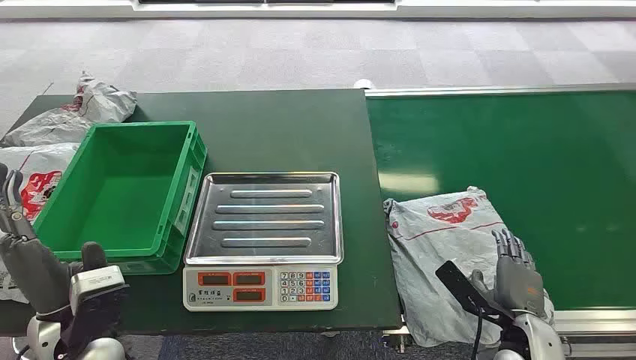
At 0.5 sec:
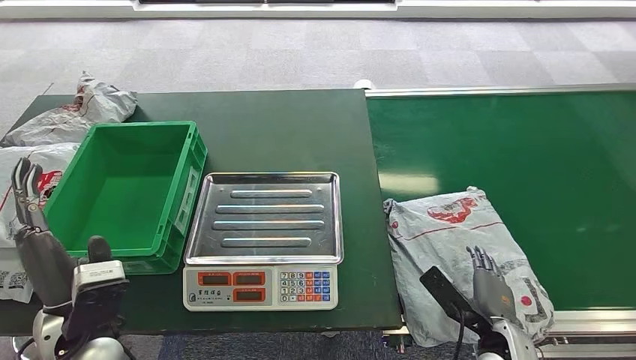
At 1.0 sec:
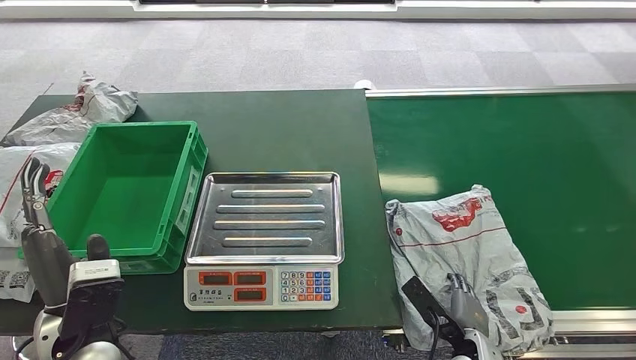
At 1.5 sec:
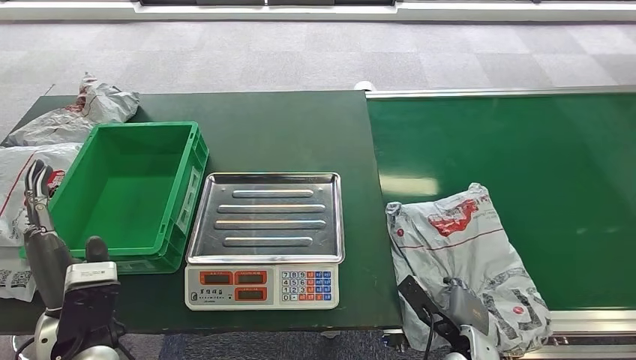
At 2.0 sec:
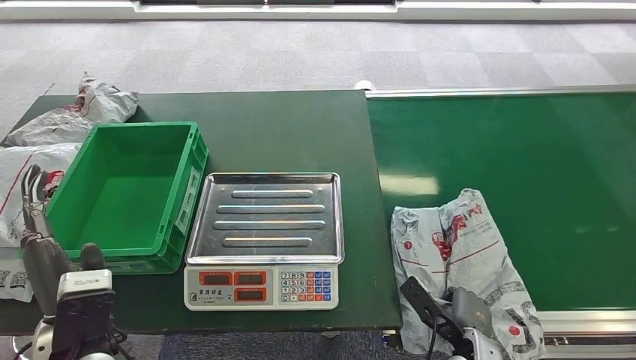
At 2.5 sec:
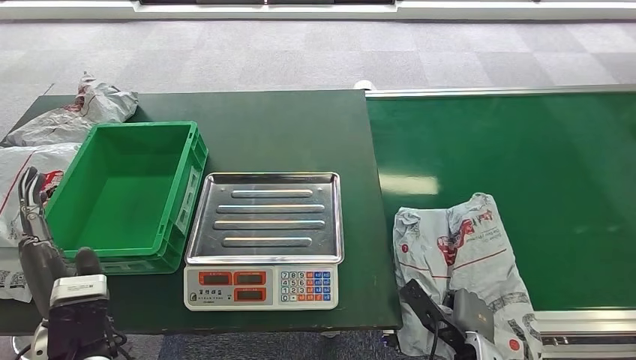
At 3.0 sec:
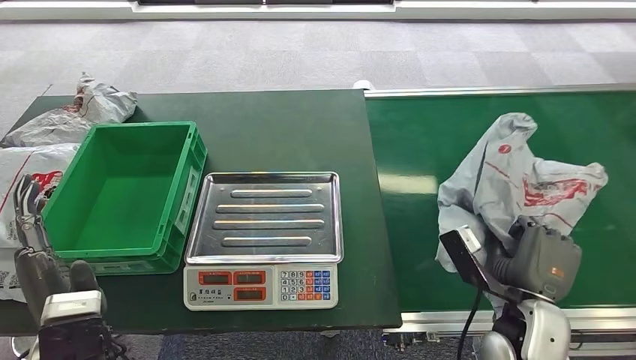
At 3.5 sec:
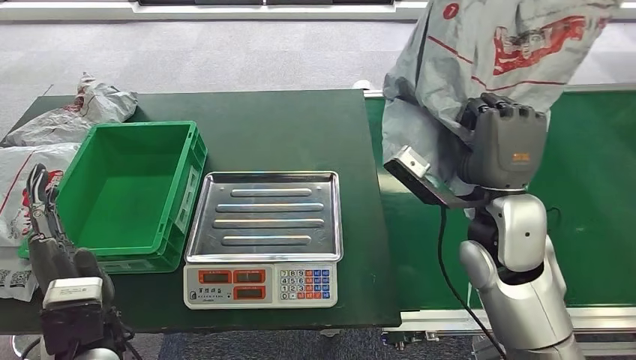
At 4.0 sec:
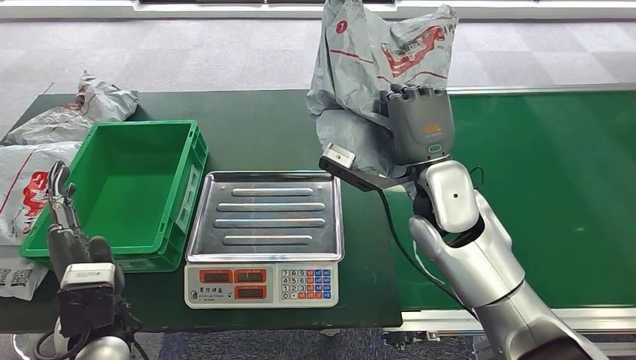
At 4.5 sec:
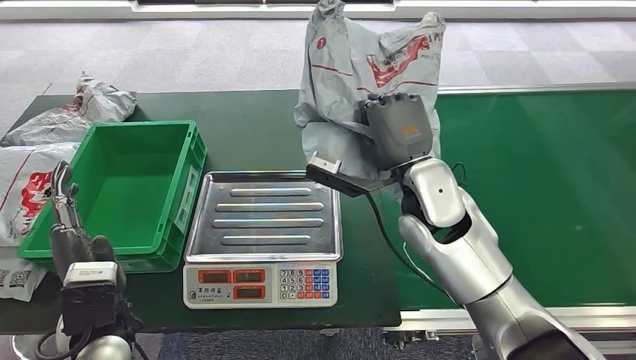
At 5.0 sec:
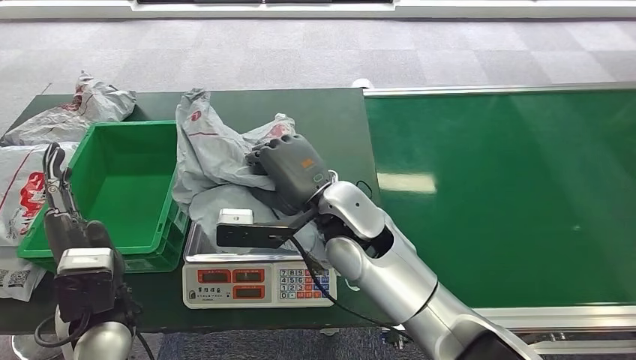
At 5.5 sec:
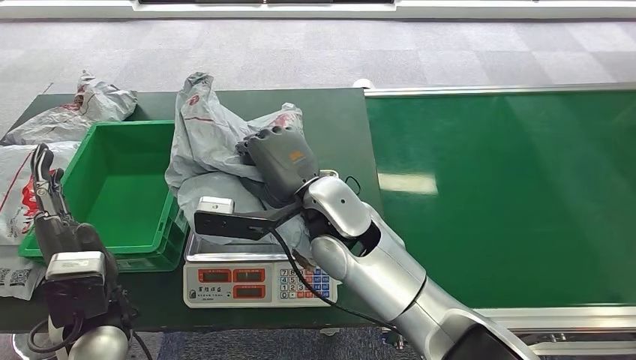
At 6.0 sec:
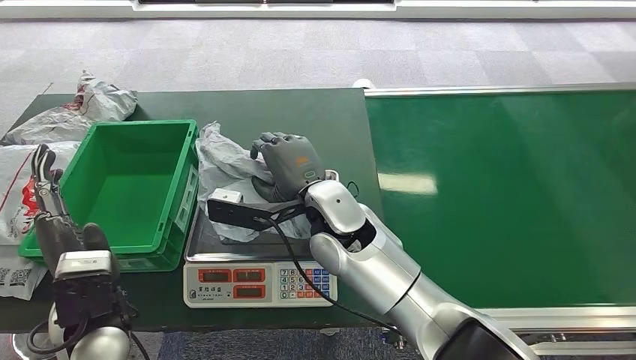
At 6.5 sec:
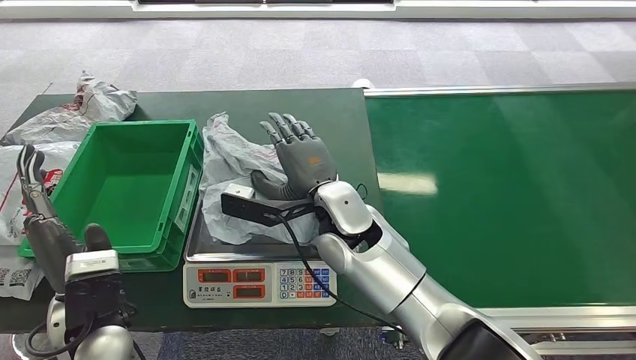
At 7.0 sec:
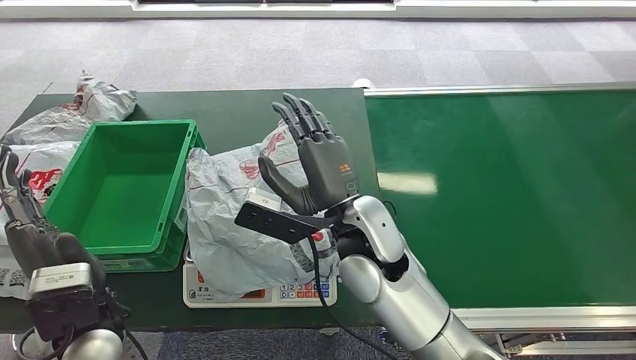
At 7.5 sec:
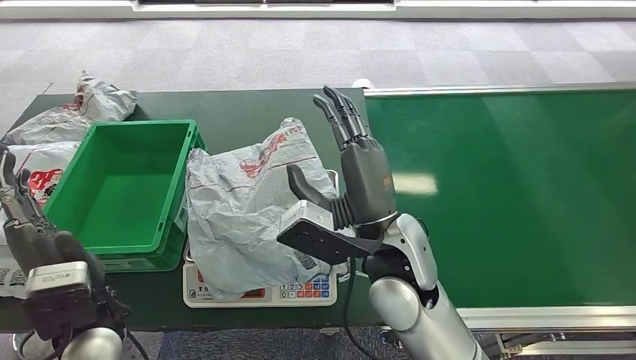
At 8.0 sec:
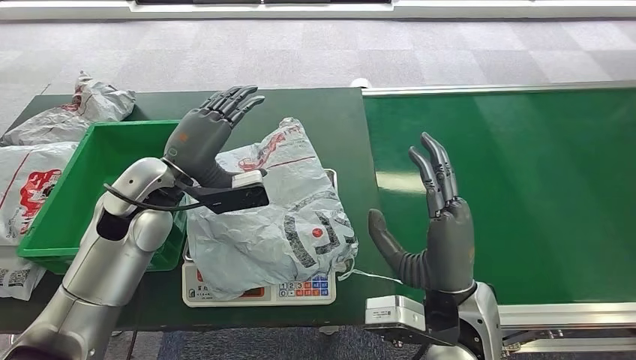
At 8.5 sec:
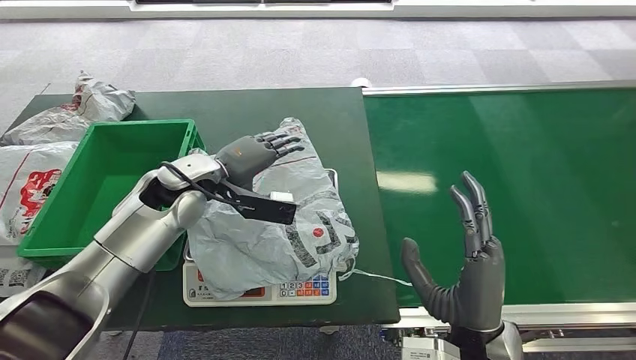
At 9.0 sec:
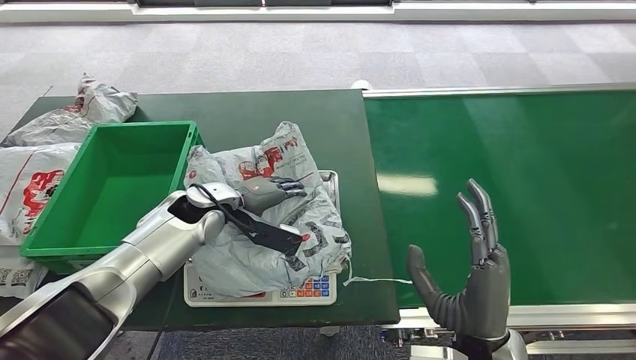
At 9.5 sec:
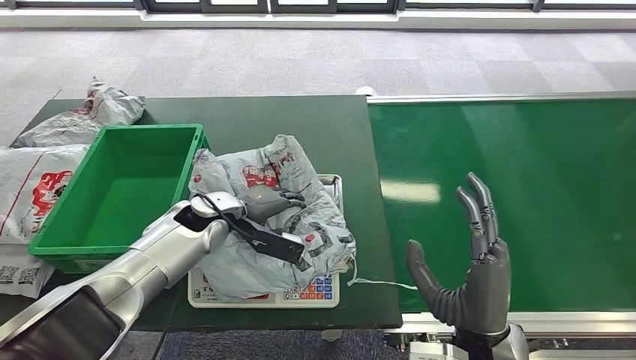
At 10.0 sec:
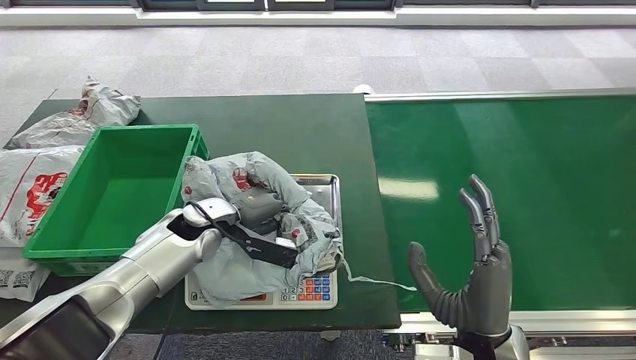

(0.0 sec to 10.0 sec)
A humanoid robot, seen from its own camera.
Step, 0.0 sec - 3.0 sec: Pick up the package from the conveyor belt.
Step, 3.5 sec - 7.5 sec: Place the package onto the inbound machine.

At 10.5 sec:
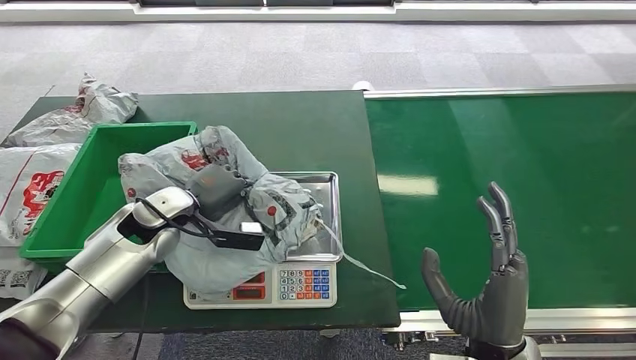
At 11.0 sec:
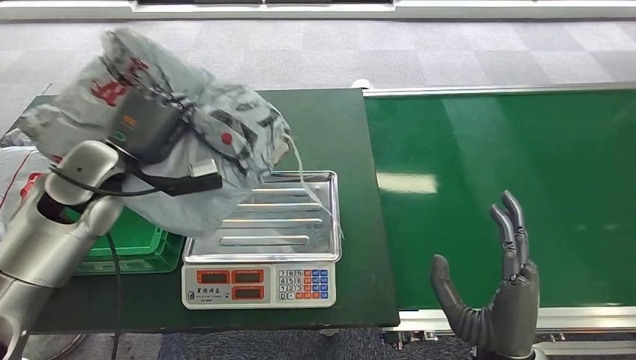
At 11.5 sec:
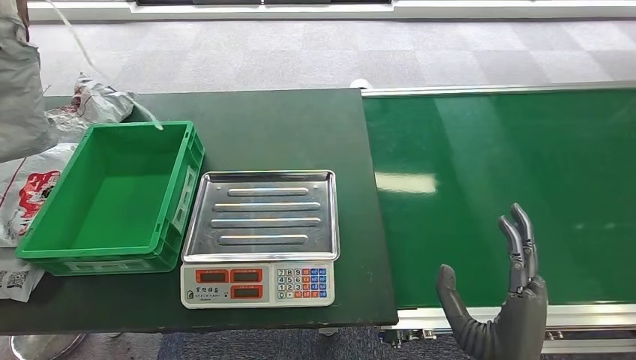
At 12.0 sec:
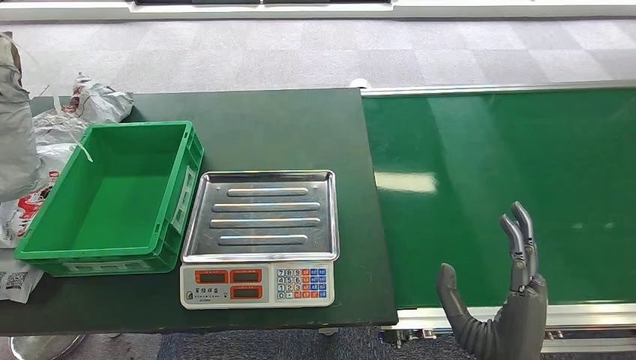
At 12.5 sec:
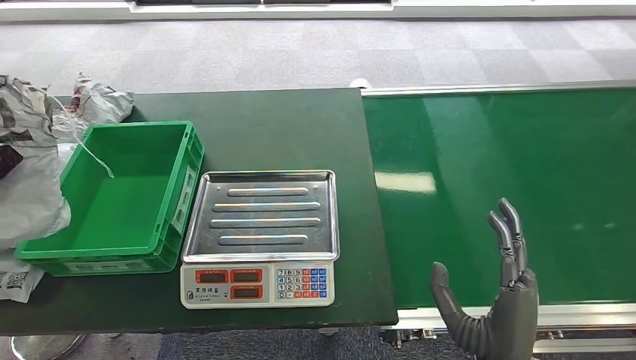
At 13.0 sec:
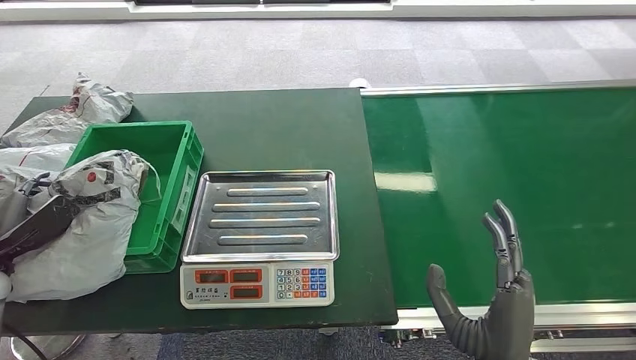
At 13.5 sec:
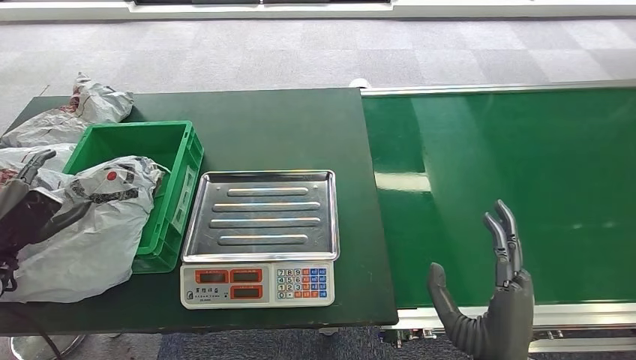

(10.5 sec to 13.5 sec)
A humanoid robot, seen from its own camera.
Step, 11.5 sec - 13.5 sec: Place the package into the parcel locker.
12.0 sec - 13.5 sec: The left hand heads downward, to the right and backward, covering some 15 cm.

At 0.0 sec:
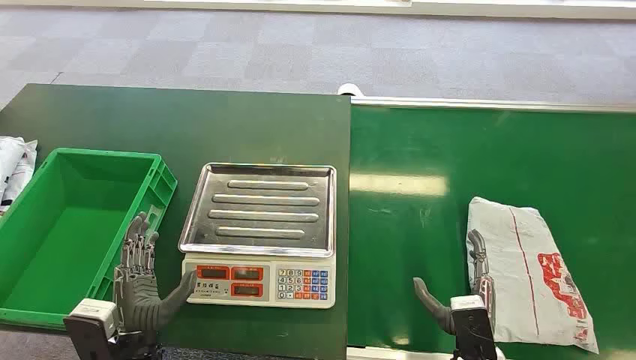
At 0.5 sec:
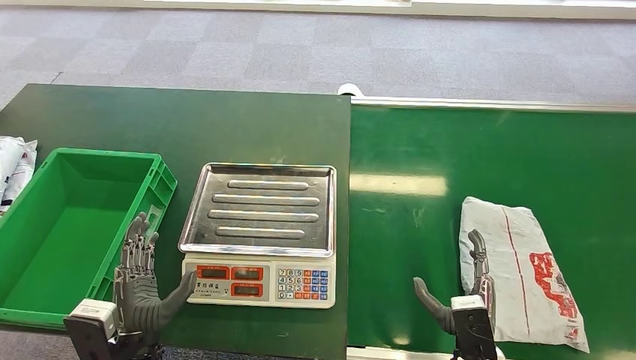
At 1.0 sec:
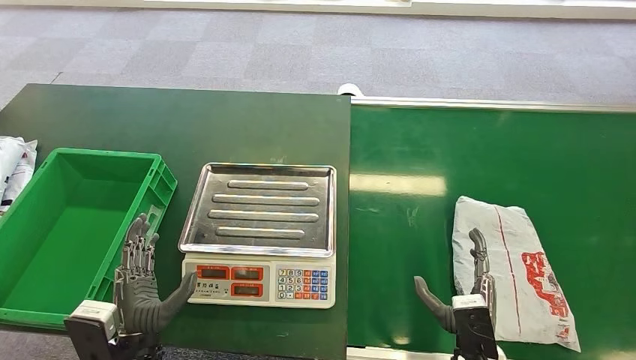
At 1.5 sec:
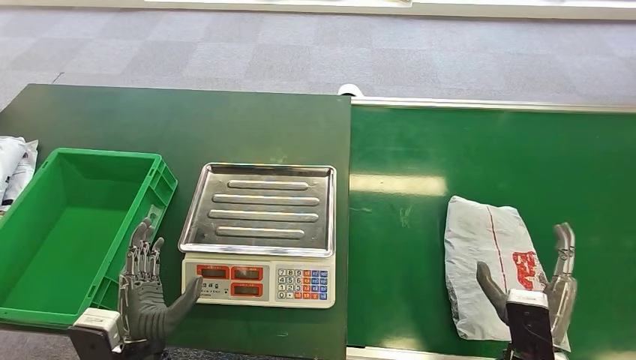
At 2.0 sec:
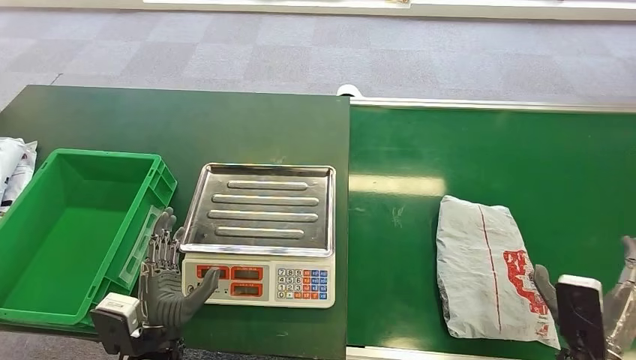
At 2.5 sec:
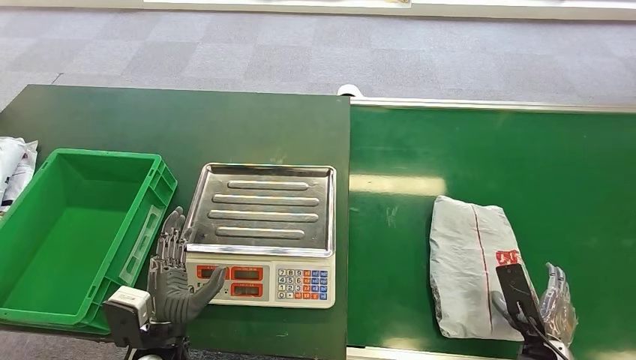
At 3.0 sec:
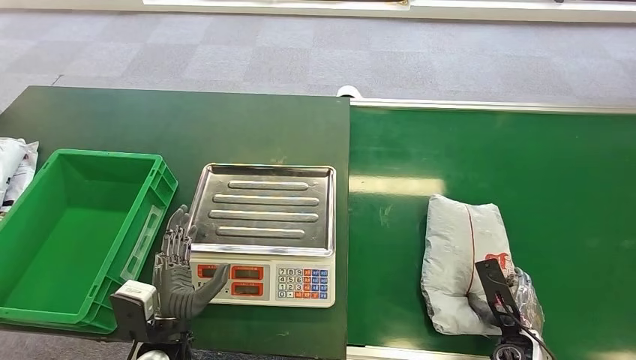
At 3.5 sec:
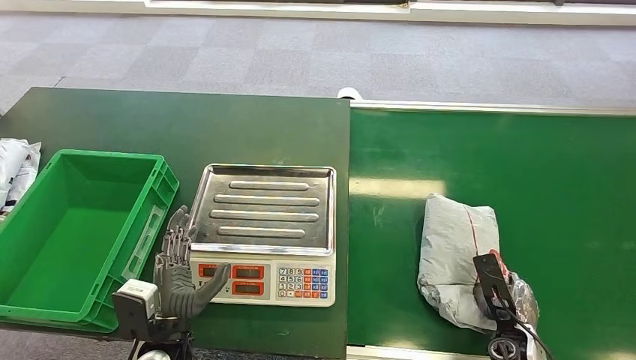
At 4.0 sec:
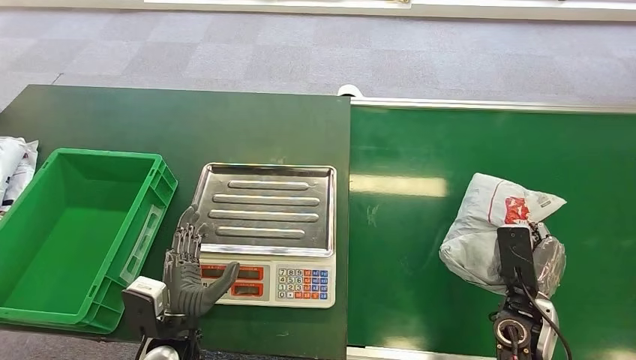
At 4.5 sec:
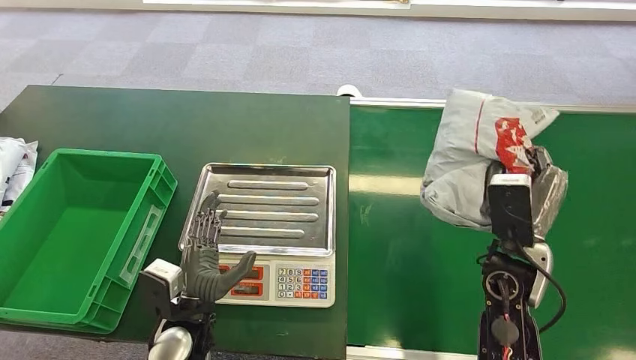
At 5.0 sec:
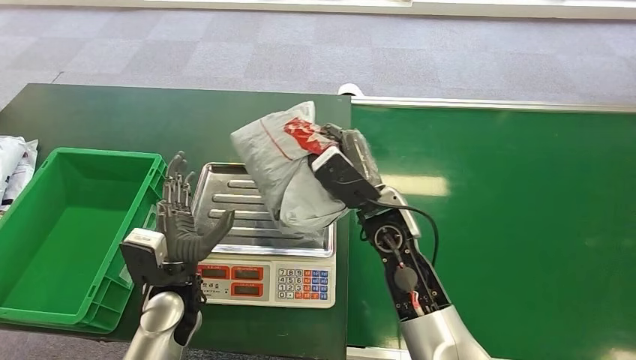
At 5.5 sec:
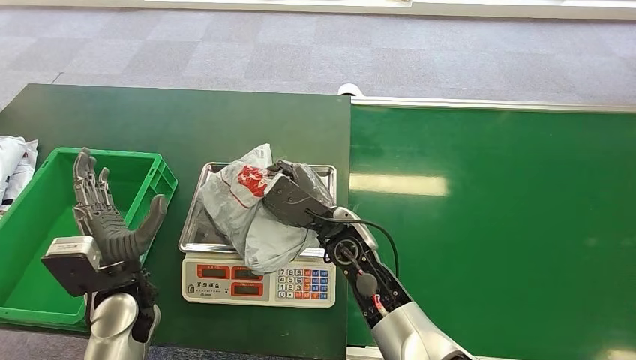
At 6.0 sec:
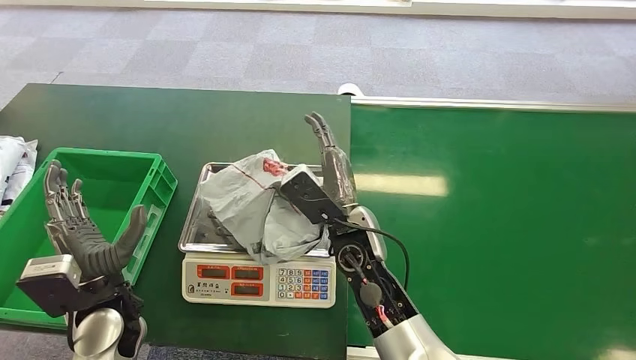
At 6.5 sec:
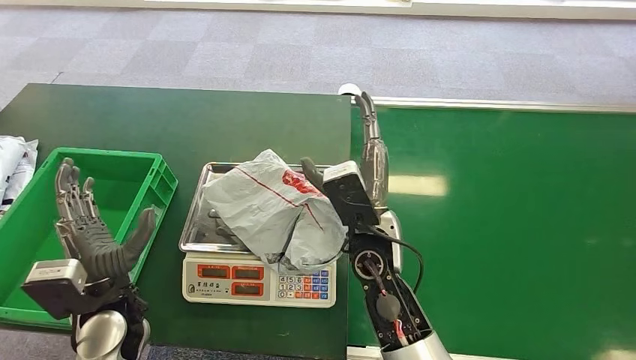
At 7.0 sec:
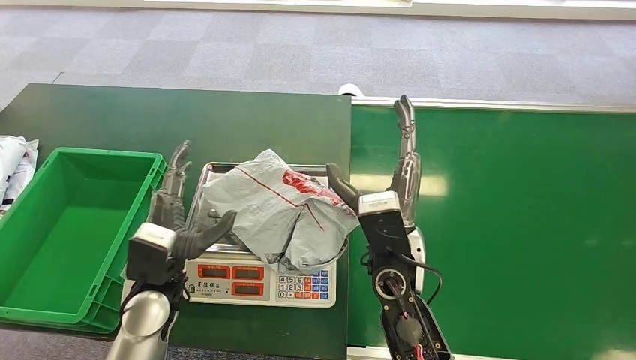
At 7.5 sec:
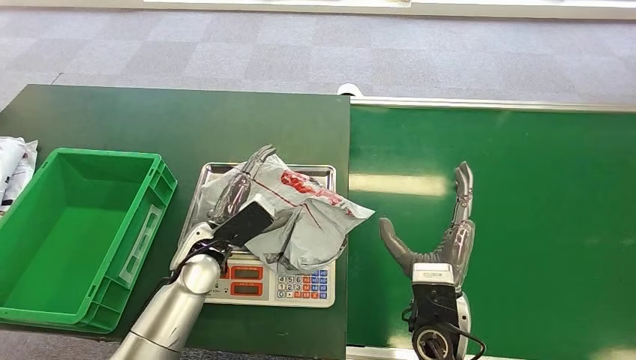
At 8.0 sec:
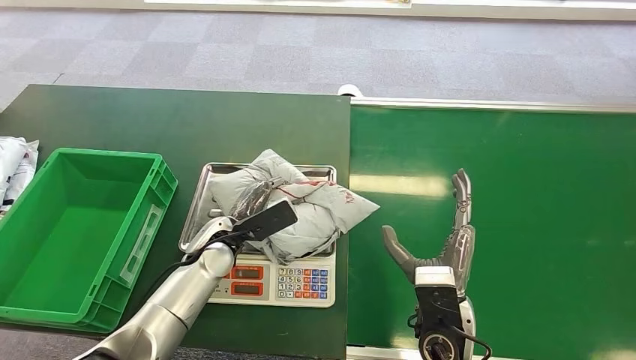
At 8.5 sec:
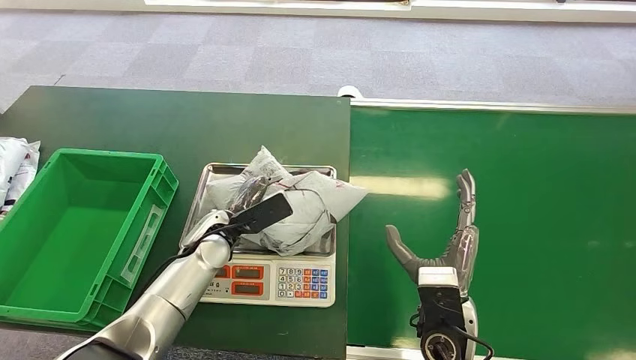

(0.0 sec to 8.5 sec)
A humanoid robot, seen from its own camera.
Step, 0.0 sec - 4.5 sec: Pick up the package from the conveyor belt.
Step, 5.0 sec - 7.0 sec: Place the package onto the inbound machine.
2.0 sec - 4.0 sec: The right hand shifts approximately 10 cm forward, and reaches about 10 cm downward, then returns.
